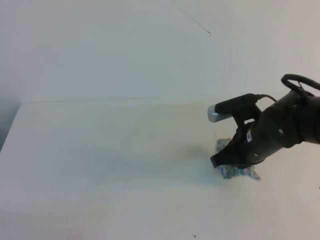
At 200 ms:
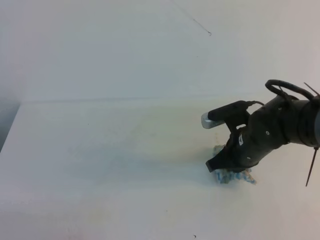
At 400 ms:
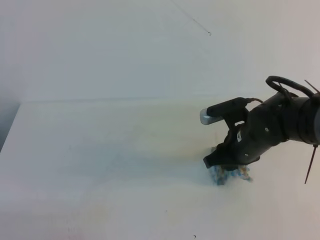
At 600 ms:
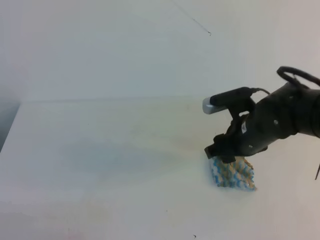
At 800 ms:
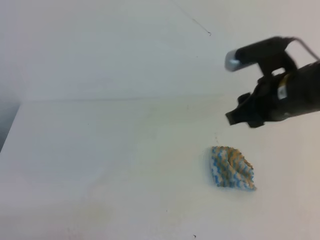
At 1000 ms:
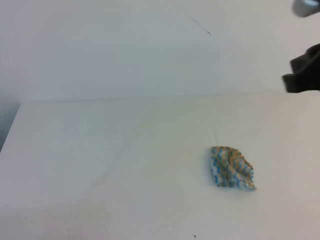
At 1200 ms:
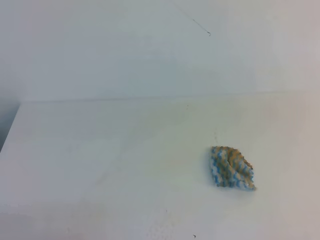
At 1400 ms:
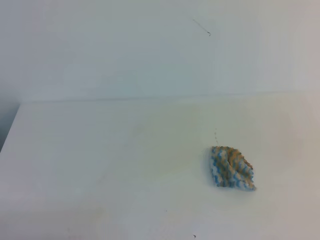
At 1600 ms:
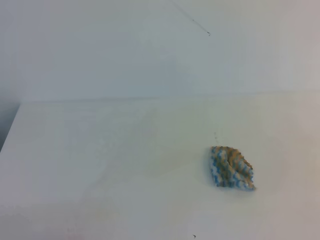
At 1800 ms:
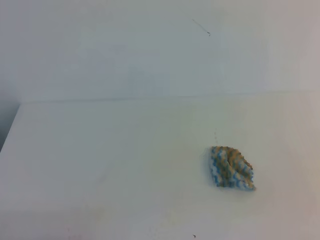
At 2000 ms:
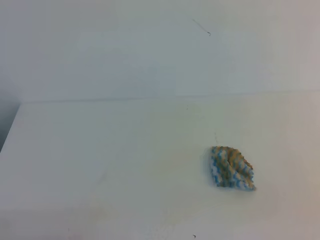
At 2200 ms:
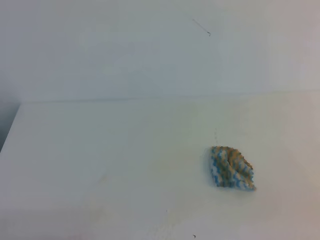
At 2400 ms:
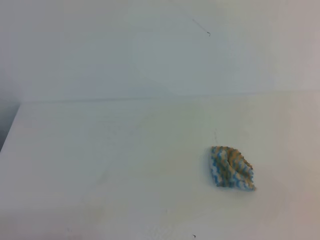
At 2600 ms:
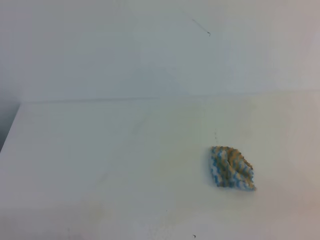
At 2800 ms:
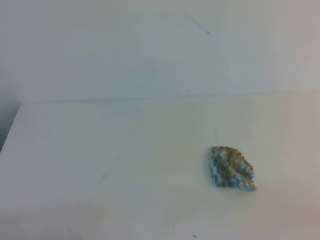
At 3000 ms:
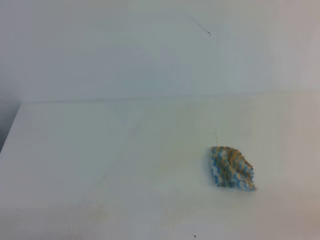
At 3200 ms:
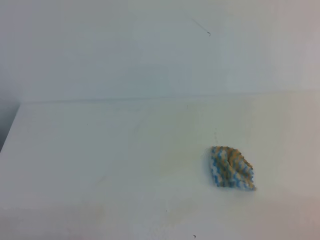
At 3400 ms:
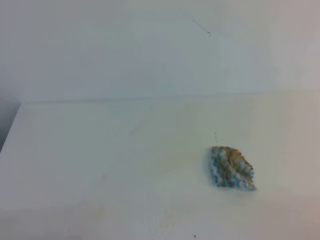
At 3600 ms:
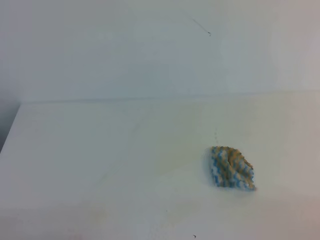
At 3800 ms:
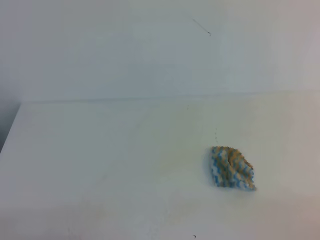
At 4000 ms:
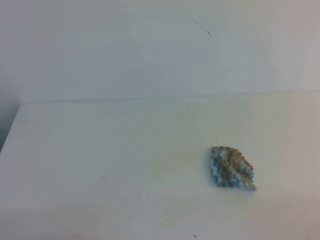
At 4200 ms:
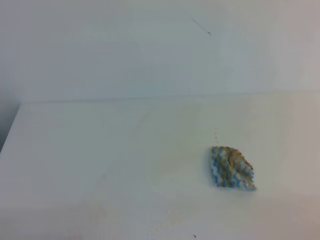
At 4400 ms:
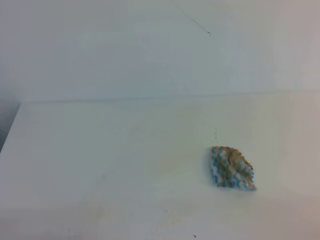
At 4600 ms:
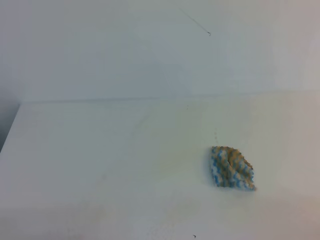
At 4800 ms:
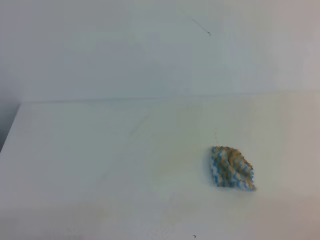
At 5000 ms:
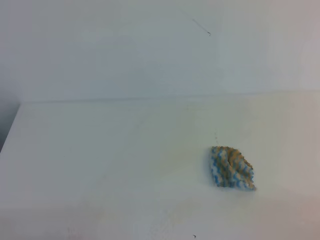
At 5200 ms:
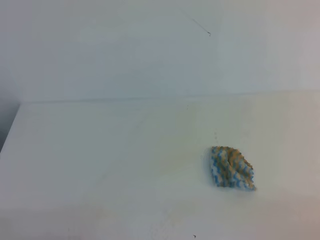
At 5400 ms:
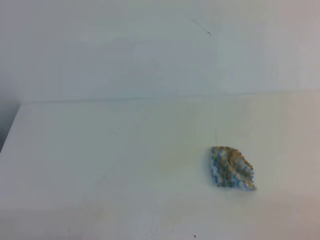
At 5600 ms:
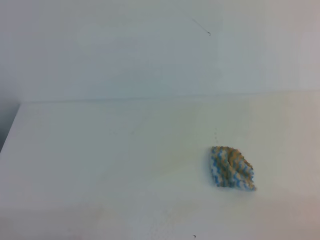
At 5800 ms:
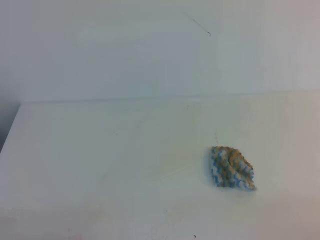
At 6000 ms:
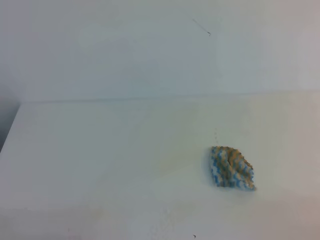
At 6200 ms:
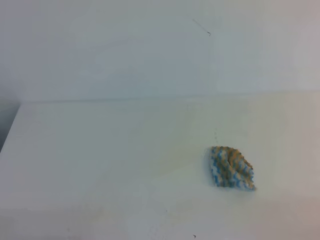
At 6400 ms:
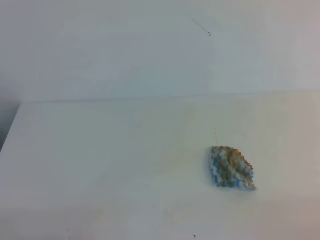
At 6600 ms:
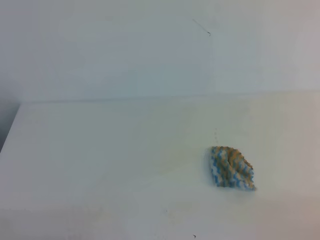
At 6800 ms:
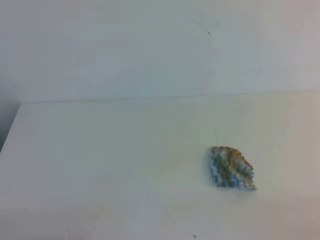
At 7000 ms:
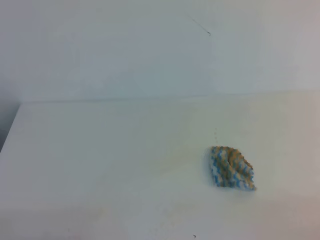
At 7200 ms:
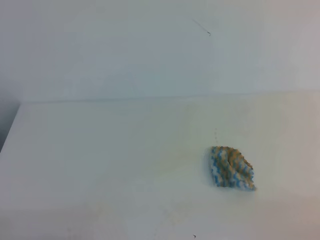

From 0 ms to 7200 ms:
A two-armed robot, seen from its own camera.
From 0 ms to 1400 ms: The right gripper heads backward, upward and to the right, covering roughly 30 cm, and opens and closes again.
From 4400 ms to 7200 ms: The two grippers keep their place.
